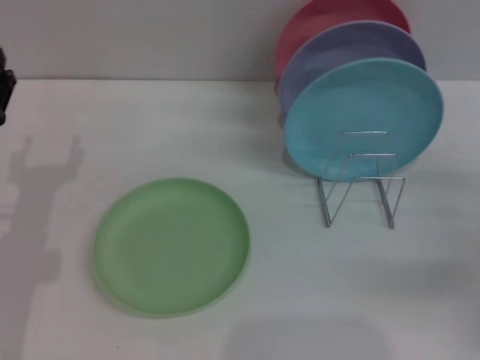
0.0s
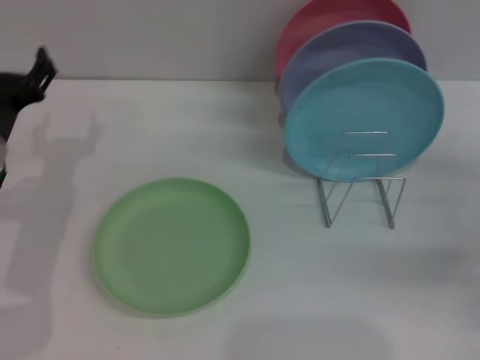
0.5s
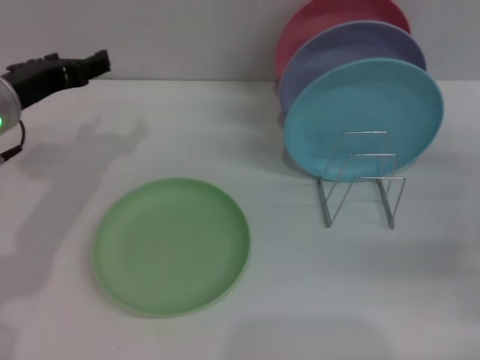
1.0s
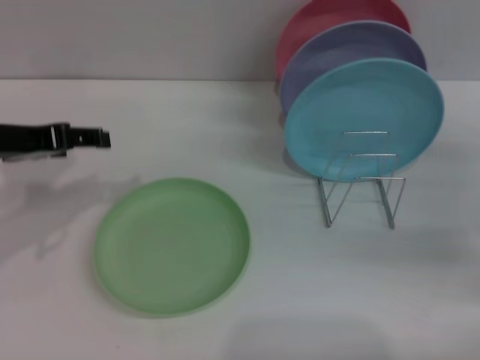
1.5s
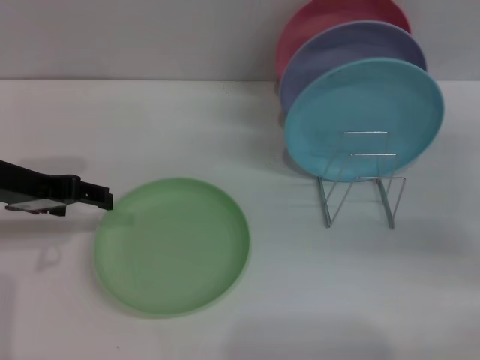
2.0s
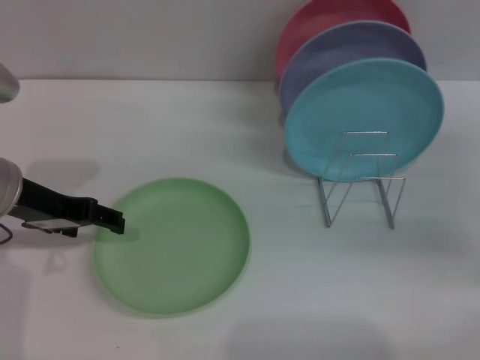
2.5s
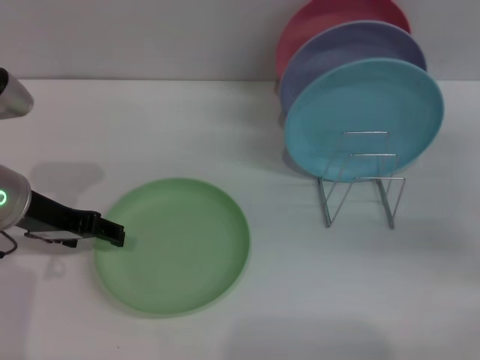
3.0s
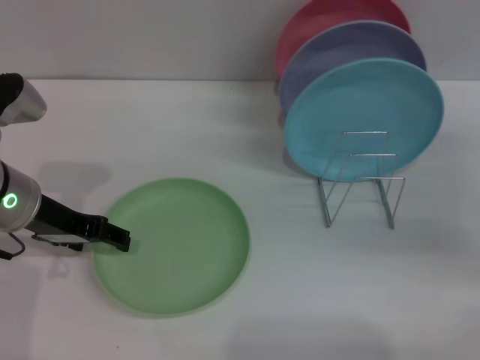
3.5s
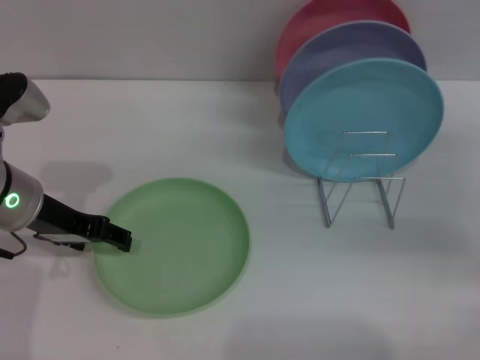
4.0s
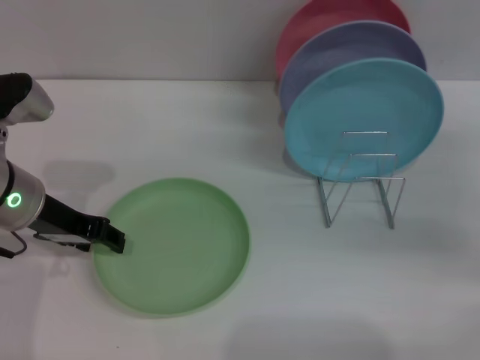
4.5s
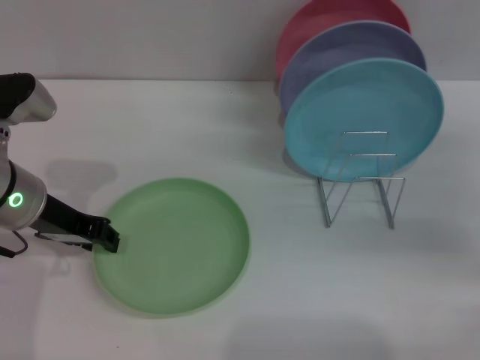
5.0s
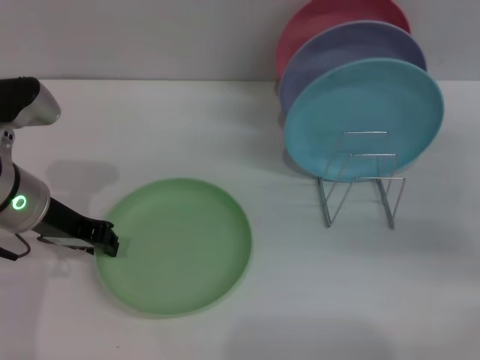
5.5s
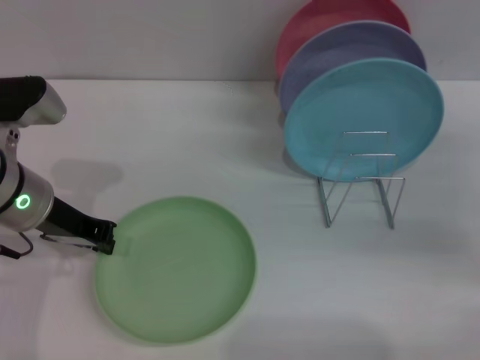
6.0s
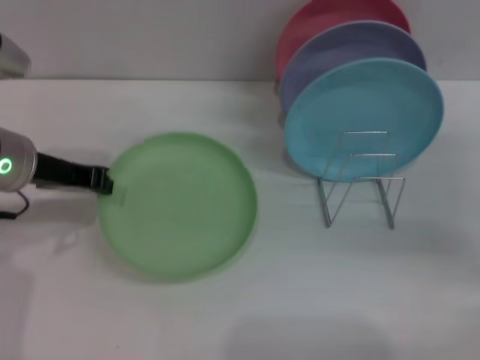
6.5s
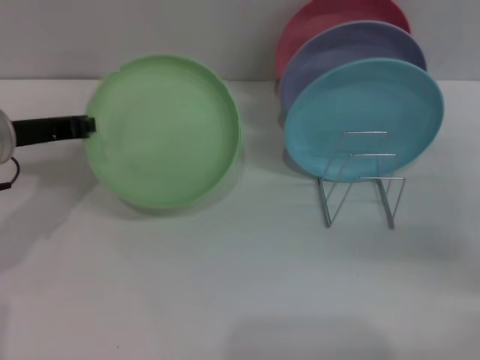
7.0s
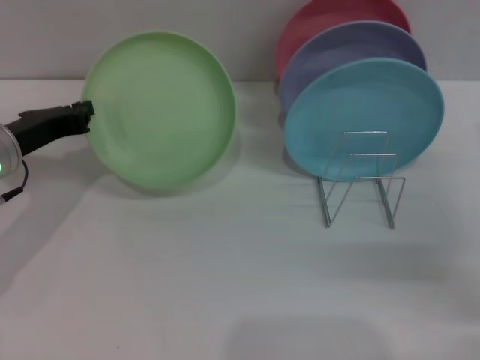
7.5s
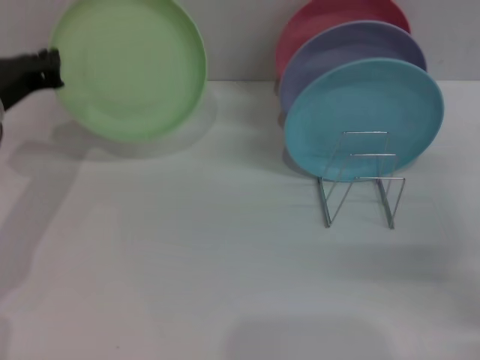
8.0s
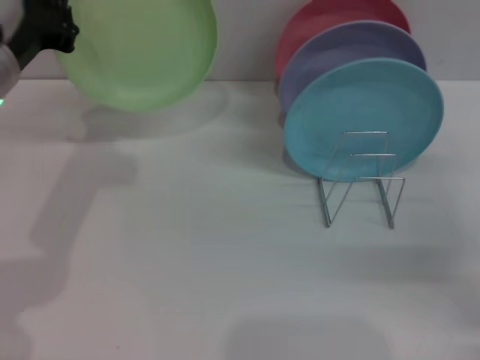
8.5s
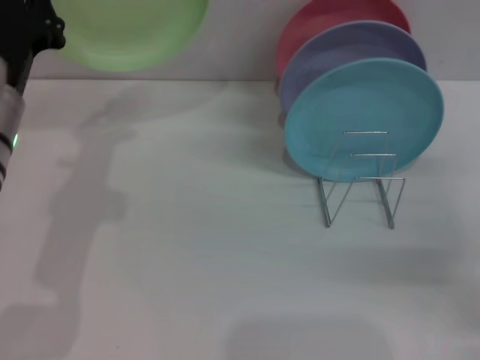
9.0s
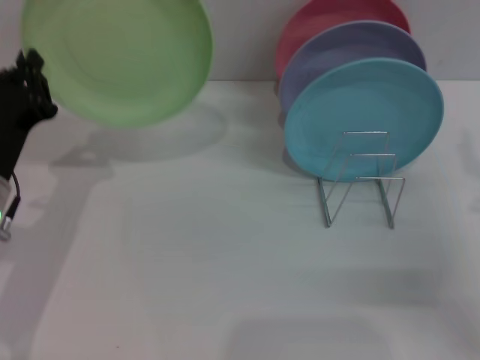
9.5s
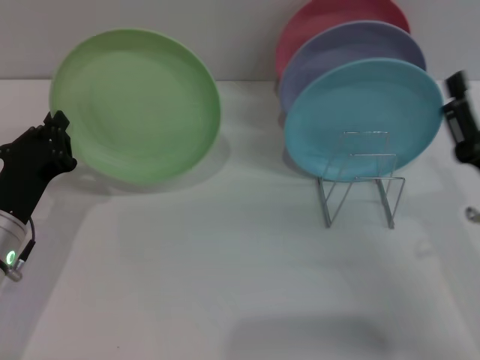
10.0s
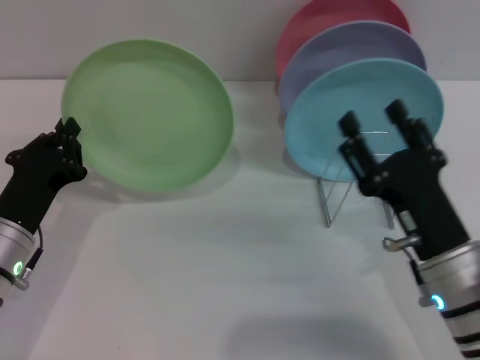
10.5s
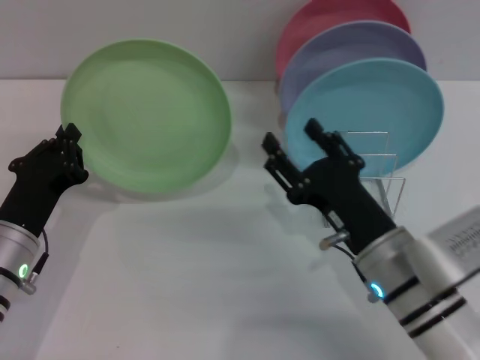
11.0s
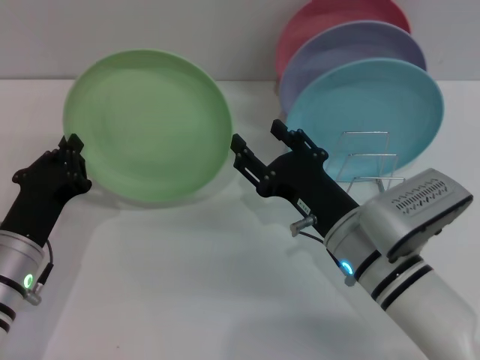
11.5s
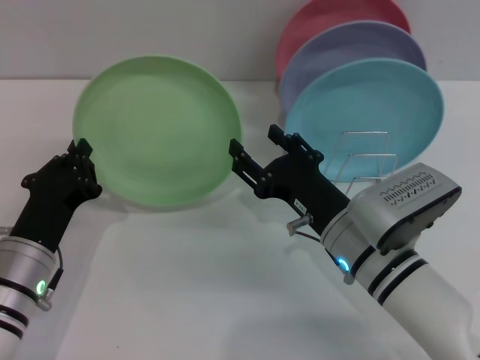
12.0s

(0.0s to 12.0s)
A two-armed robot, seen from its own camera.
Task of the whole recording: Grip the plate with one hand, pass it to the other, then set it on the shelf.
Step, 0.0s - 9.5s: Pick up the plate with the left gripper.
0.0s - 2.0s: The left gripper shifts about 10 cm upward. The right gripper moves forward, roughly 5 cm.
2.0s - 4.0s: The left gripper shifts by some 5 cm.
4.0s - 6.0s: The left gripper closes.
6.0s - 8.0s: The right gripper changes place by approximately 5 cm, while the left gripper changes place by approximately 5 cm.
8.0s - 10.0s: The left gripper heads downward and backward, covering about 15 cm; the right gripper is displaced to the left and backward by some 10 cm.
10.0s - 12.0s: The right gripper heads to the left, covering approximately 15 cm.

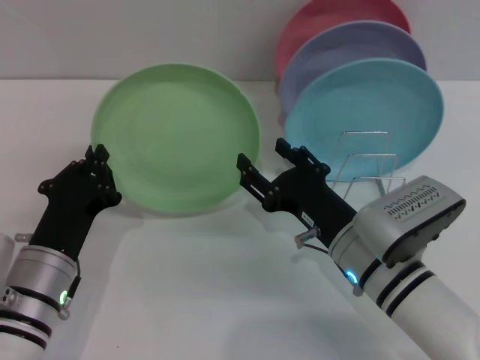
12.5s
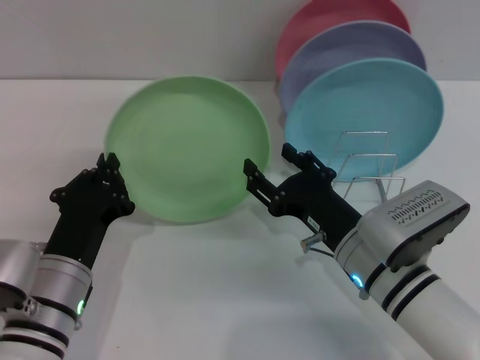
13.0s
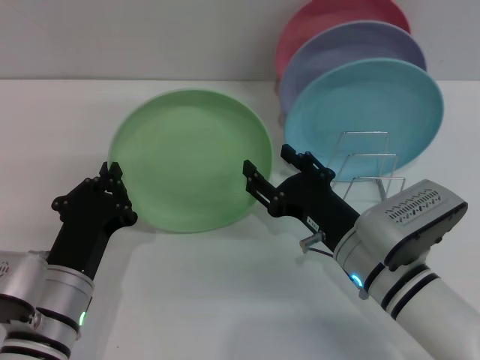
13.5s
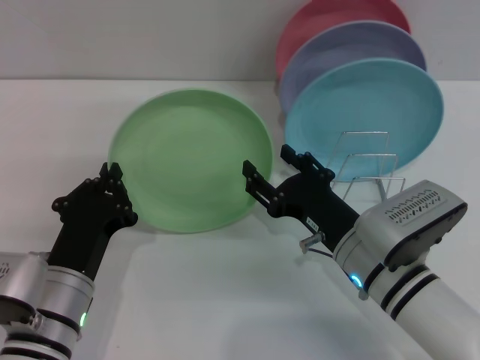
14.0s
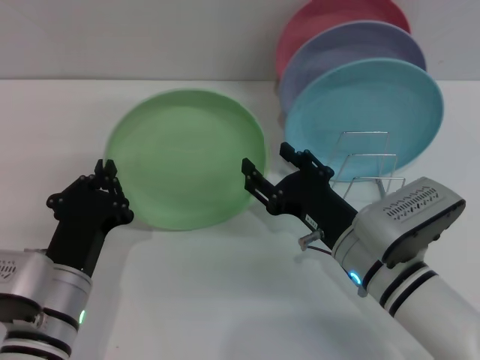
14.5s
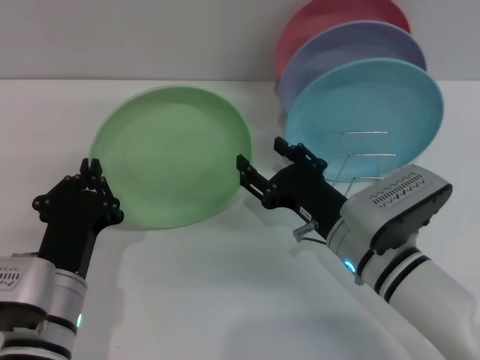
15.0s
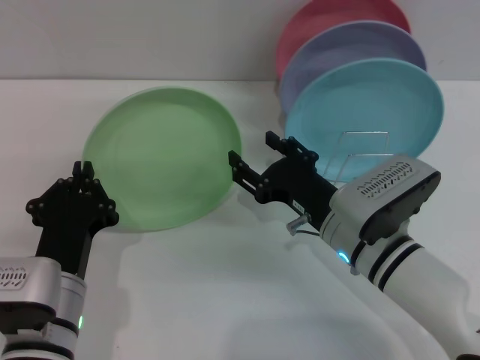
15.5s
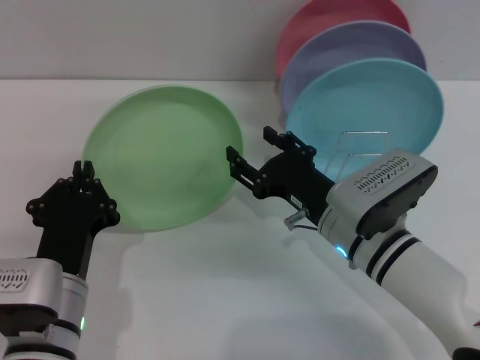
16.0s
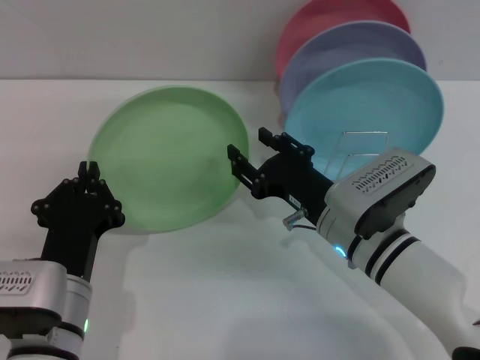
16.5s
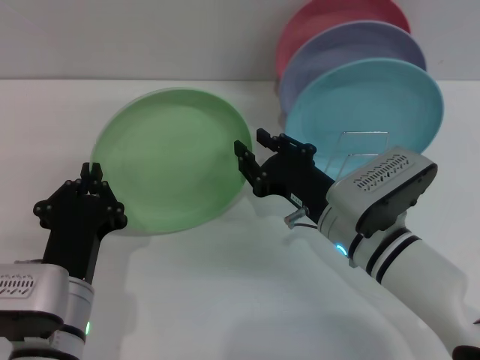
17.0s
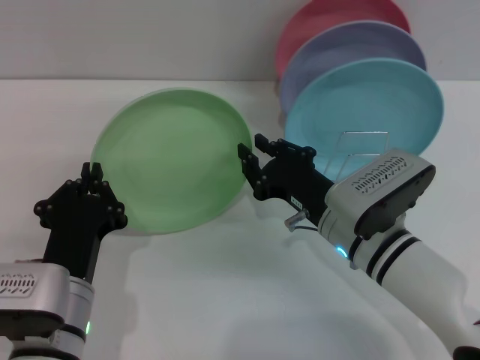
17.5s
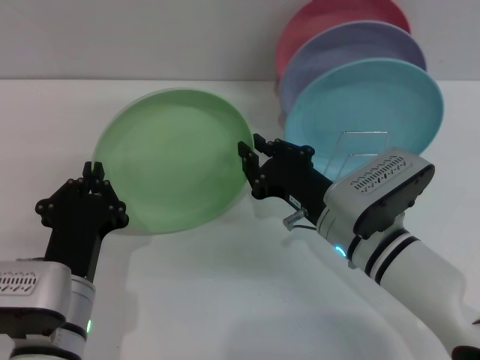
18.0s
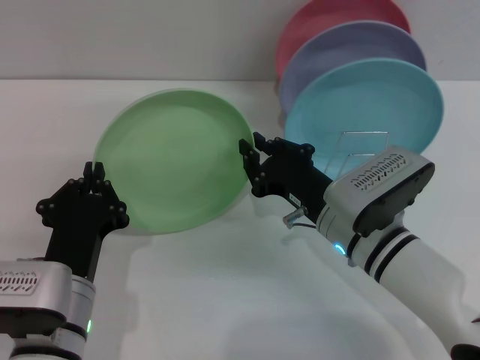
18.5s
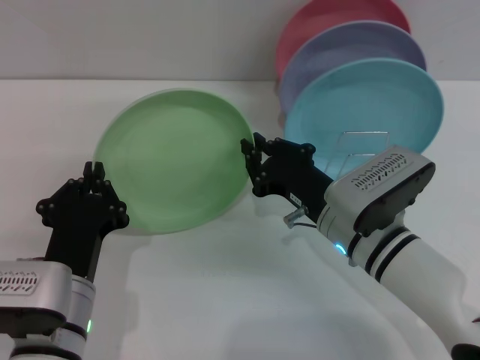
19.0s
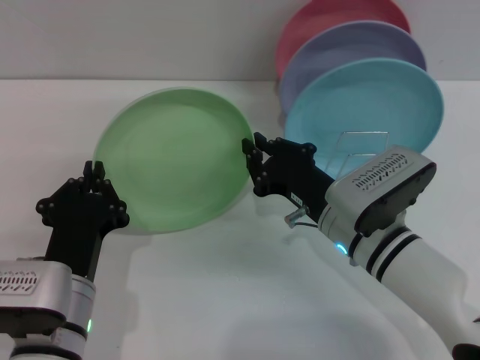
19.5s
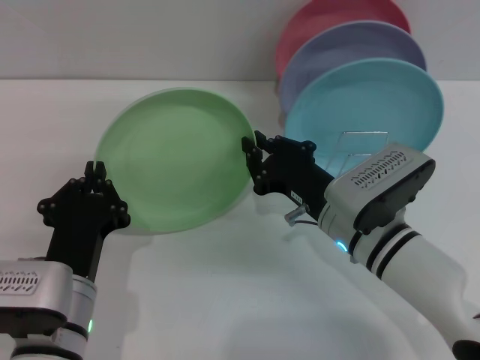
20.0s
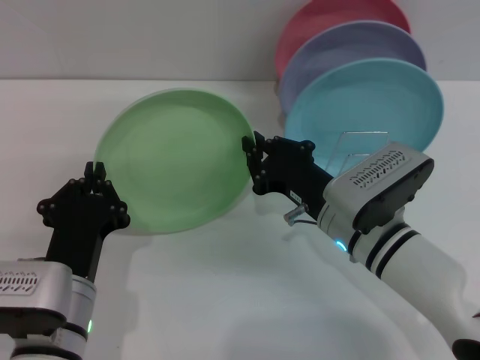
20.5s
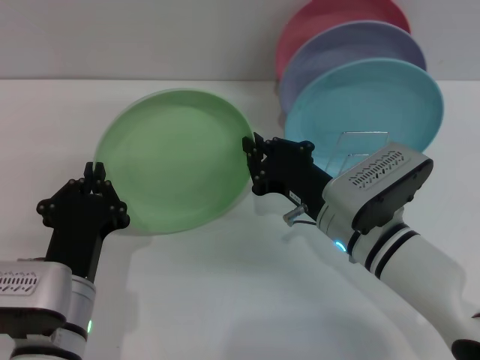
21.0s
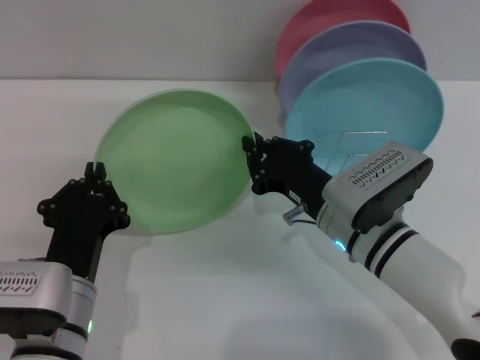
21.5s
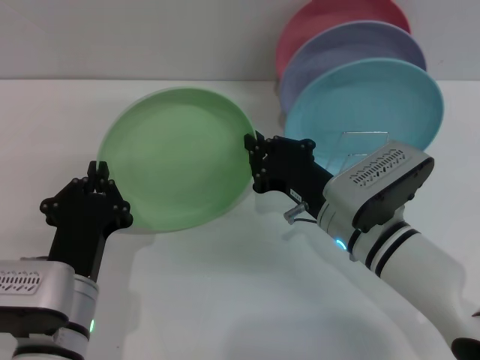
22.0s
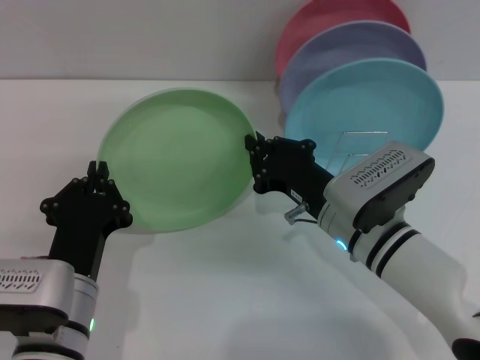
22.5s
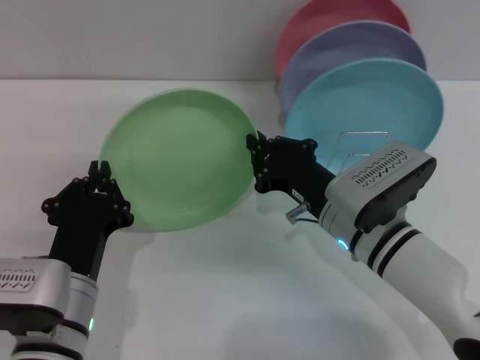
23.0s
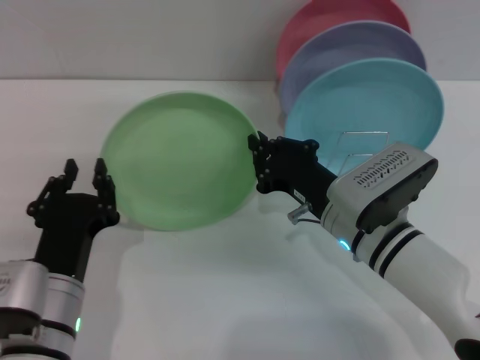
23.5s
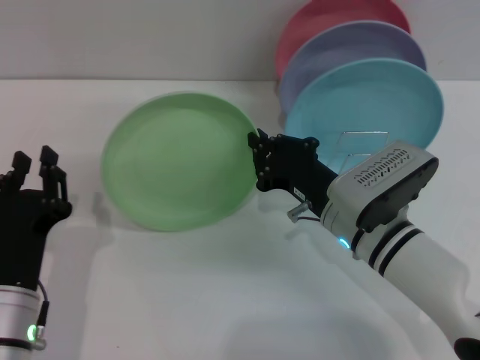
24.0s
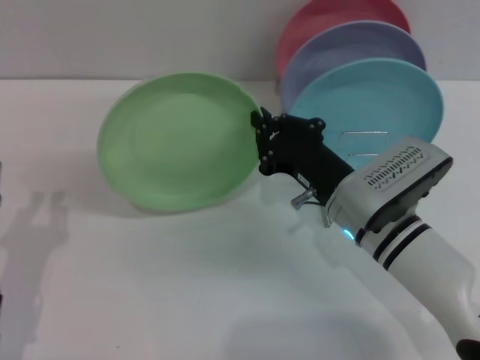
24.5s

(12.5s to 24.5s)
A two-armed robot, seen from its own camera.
Task of the whole recording: Grip the plate with one hand, pass it to the other, then set it on the shelf.
12.5s - 16.5s: The grippers stay close to where they were, moving slightly.
16.5s - 18.5s: The right gripper closes its fingers.
18.5s - 22.5s: Neither gripper changes place.
22.5s - 24.5s: The left gripper shifts roughly 10 cm to the left.

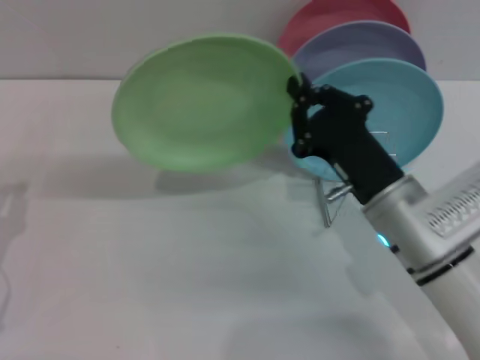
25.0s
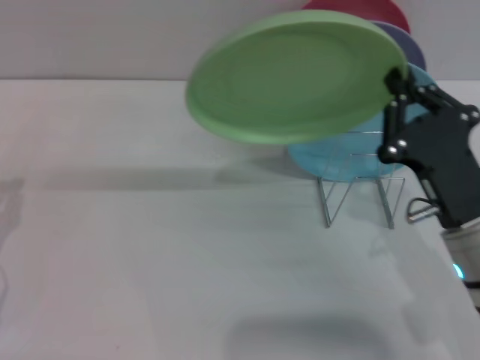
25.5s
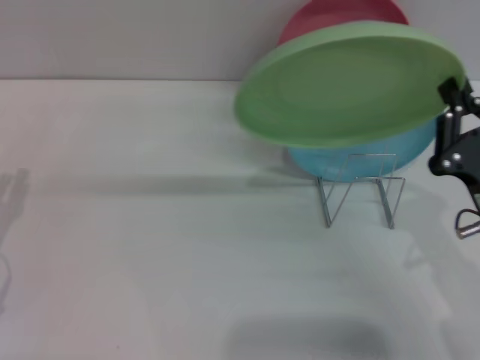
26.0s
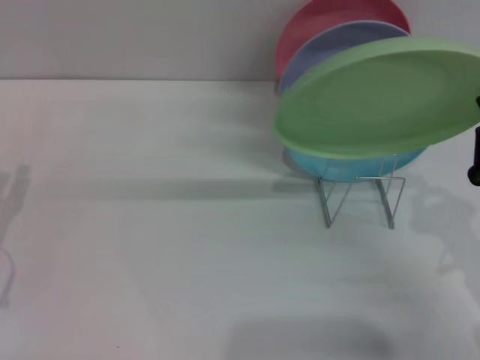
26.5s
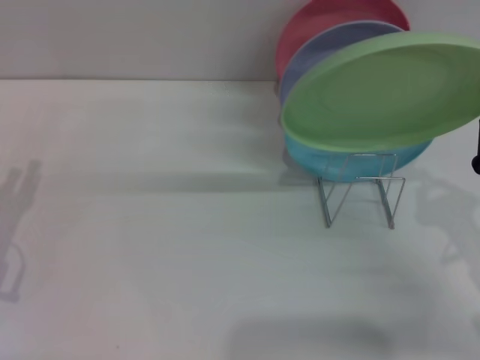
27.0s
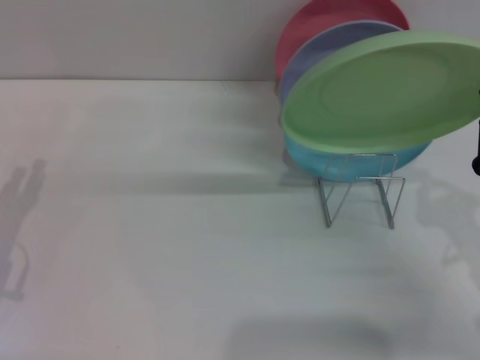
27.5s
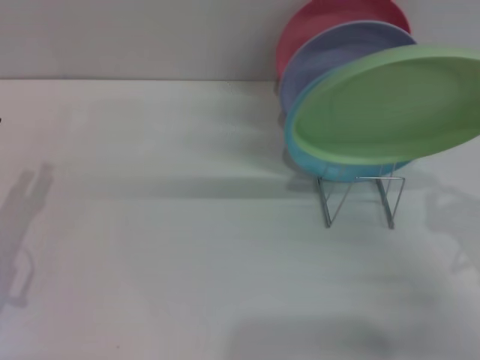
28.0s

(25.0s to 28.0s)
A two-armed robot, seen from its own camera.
Task of the whole recording: Grip the plate with one hand, pass it to the other, then set it on the shelf.
25.0s - 26.5s: The left gripper opens up; the right gripper moves to the right and backward, approximately 15 cm.
26.5s - 28.0s: There are only small adjustments of the grippers.
